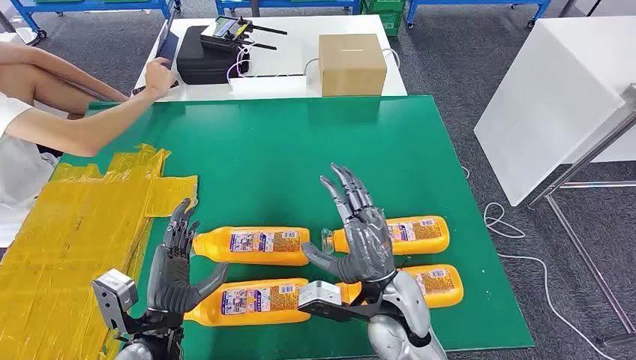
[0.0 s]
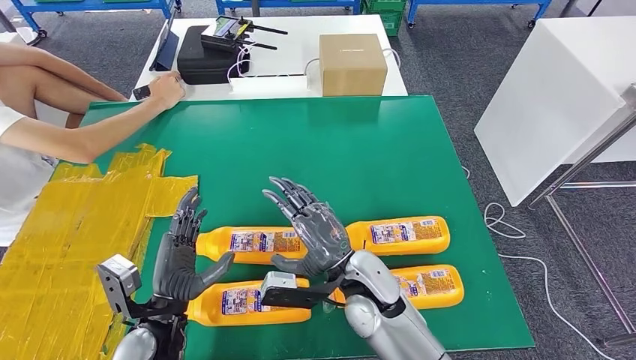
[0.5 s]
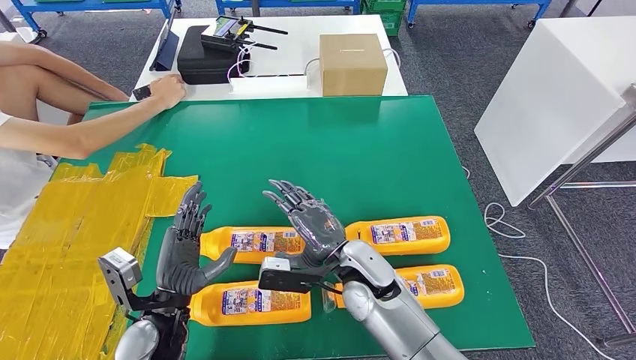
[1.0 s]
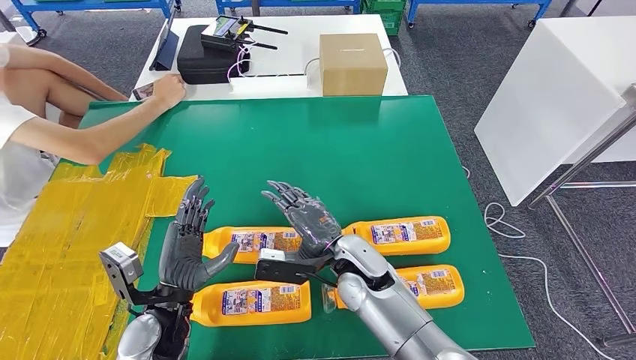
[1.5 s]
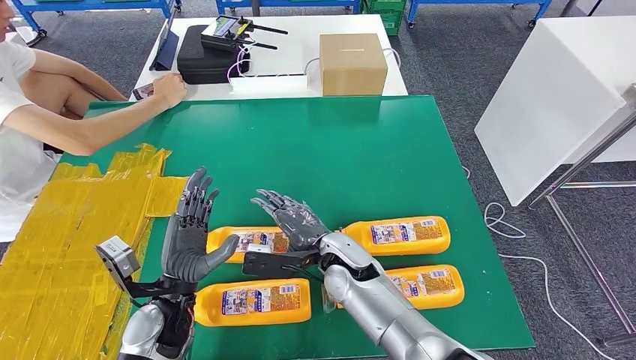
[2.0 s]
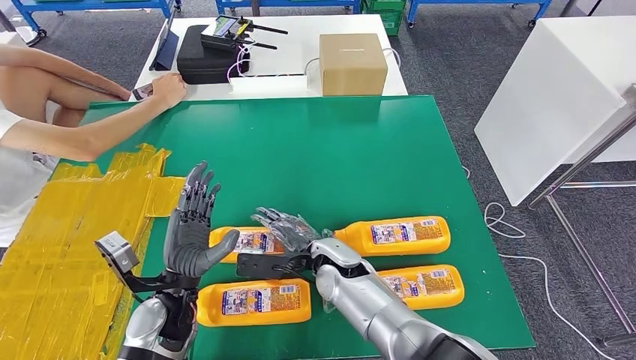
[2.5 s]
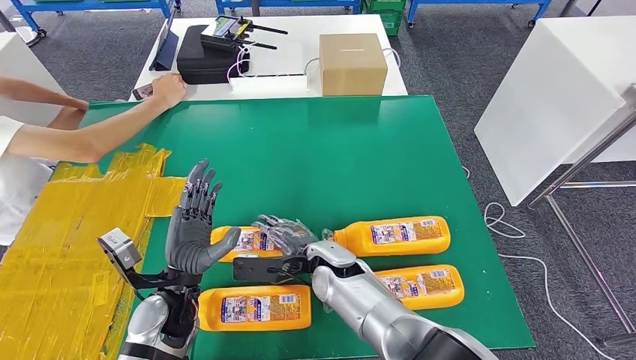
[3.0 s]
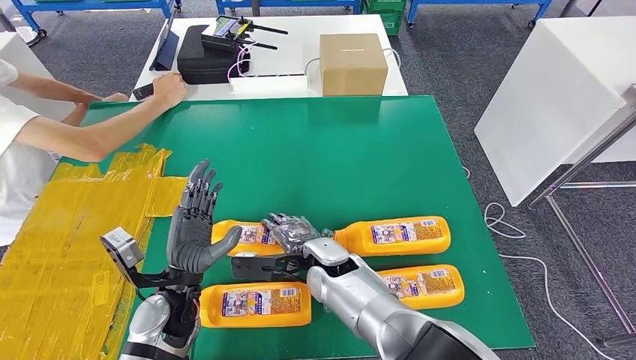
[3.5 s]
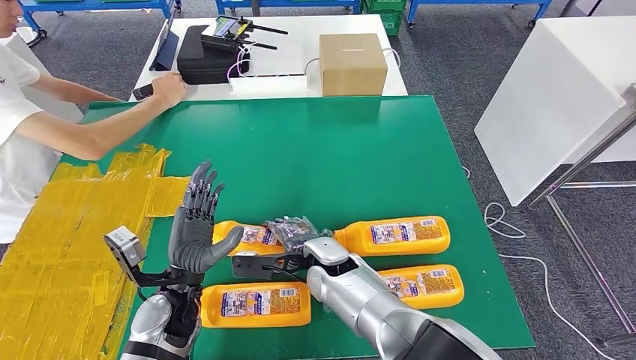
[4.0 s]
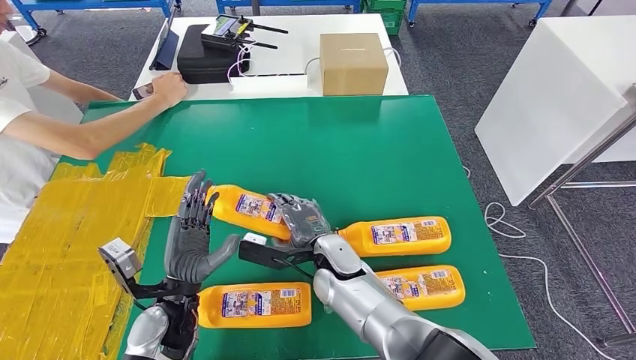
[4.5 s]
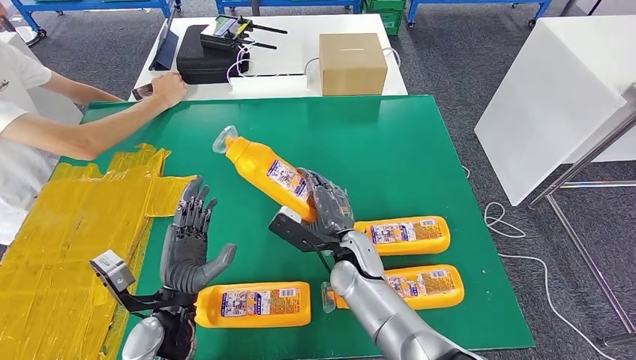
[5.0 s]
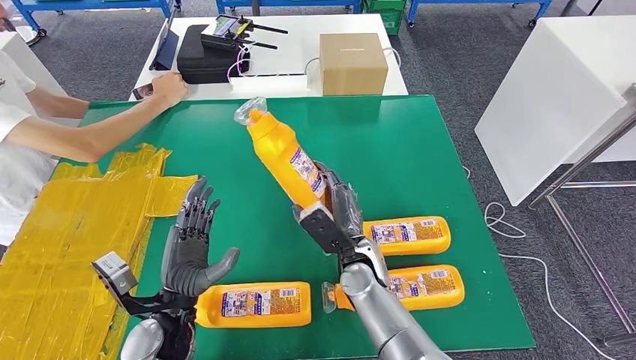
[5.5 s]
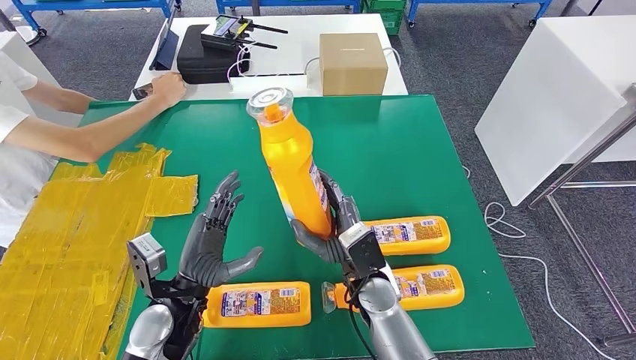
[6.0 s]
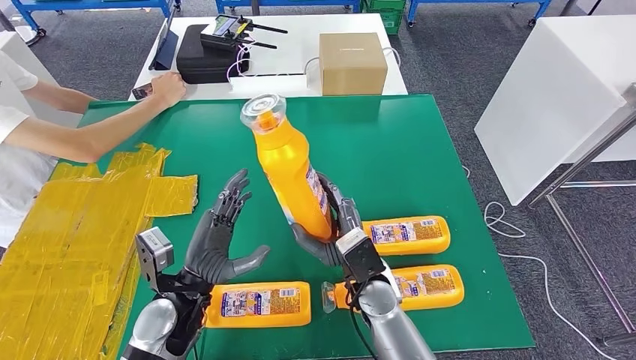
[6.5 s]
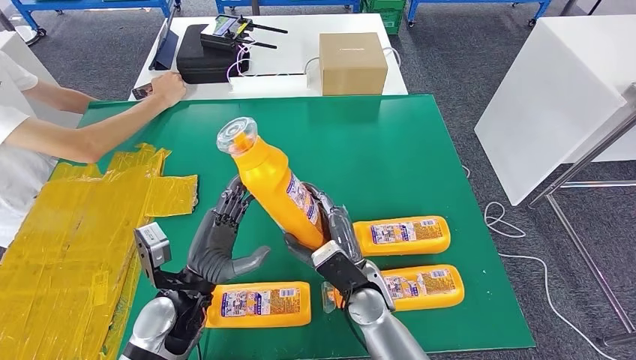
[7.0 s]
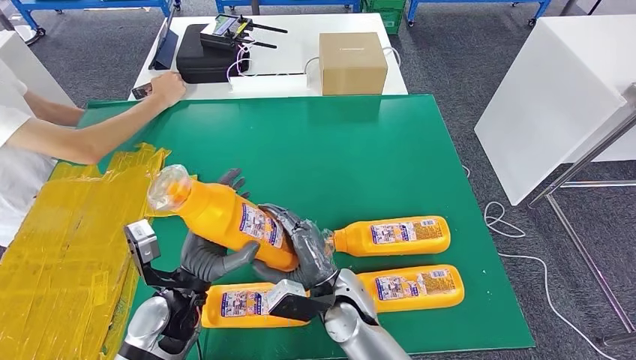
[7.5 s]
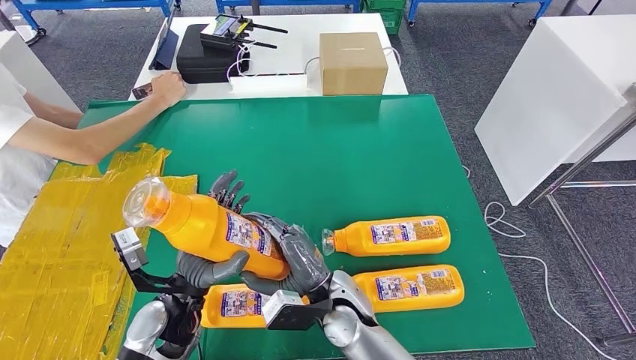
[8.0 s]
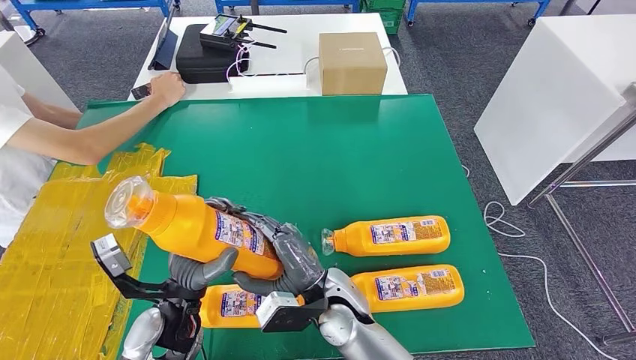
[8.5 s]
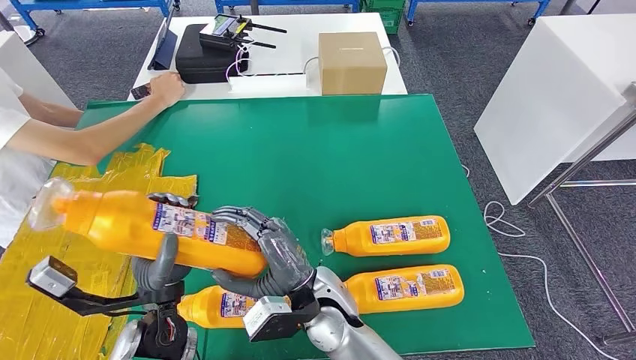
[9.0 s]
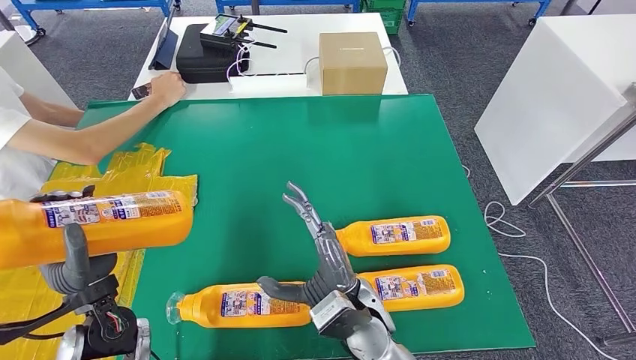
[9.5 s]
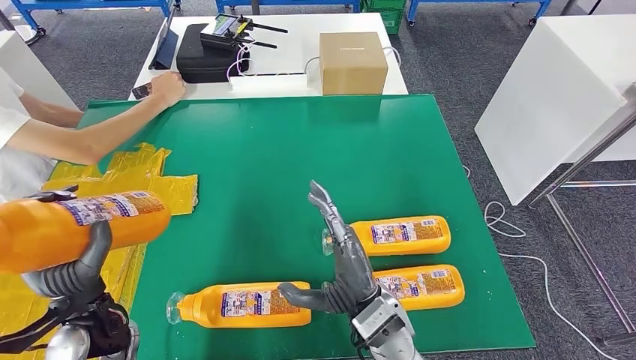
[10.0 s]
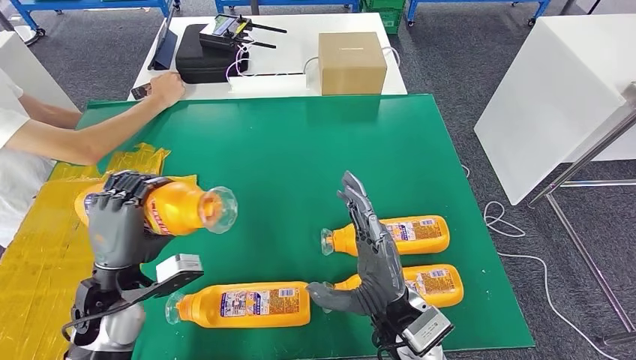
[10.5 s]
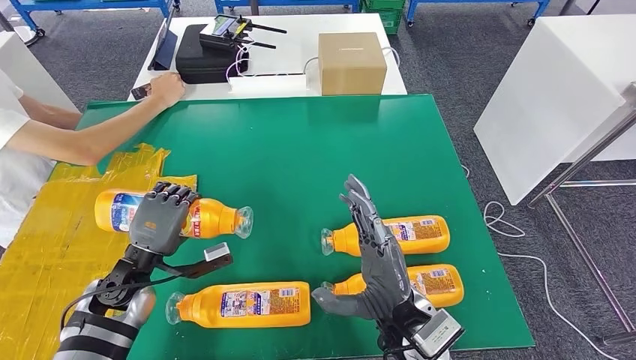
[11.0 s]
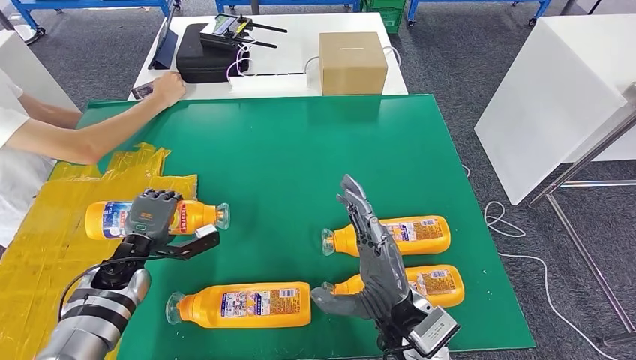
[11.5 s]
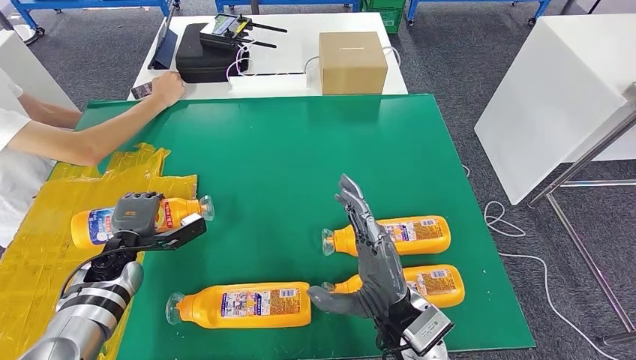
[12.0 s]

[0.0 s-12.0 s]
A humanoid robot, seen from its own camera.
Step, 0.0 to 6.5 s: Take the fast-moving consumer goods bottle from the table.
Step, 7.0 to 11.5 s: Flip the fast-moving consumer goods bottle to the front side.
4.0 to 6.0 s: The right hand shifts about 5 cm to the right.
6.0 to 8.0 s: The right hand heads to the left, covering roughly 5 cm.
8.0 to 10.0 s: The right hand heads to the right, covering about 5 cm. Meanwhile the left hand shifts about 10 cm to the left and upward.
10.0 to 12.0 s: The left hand goes approximately 20 cm forward, downward and to the left.

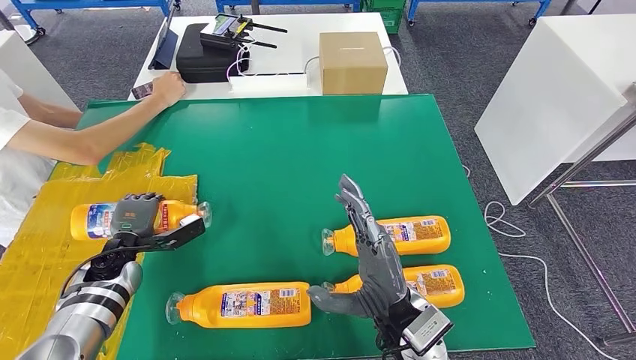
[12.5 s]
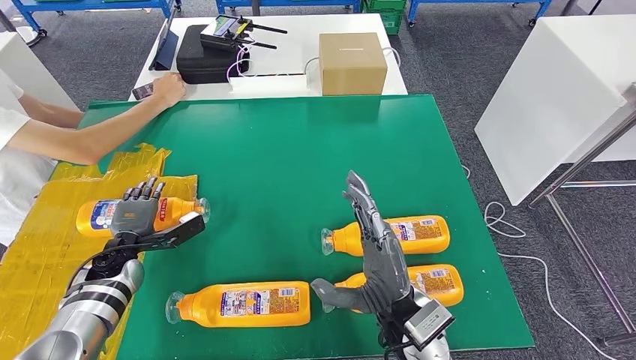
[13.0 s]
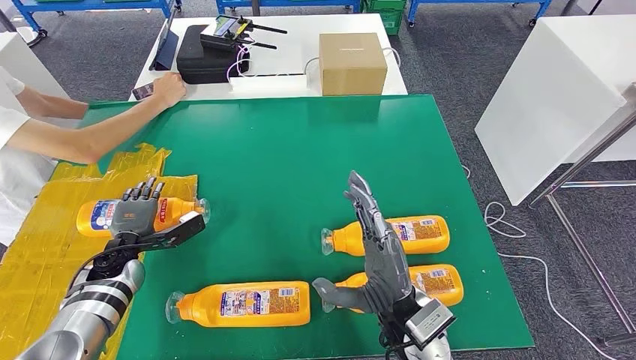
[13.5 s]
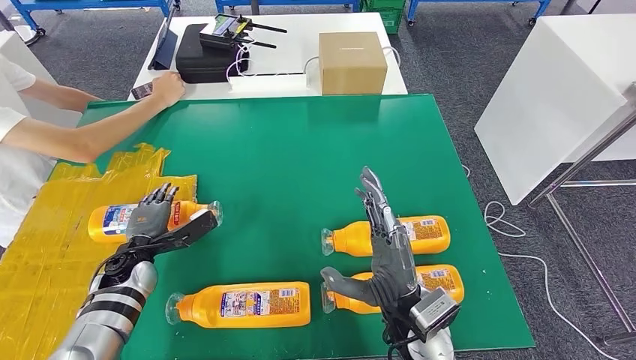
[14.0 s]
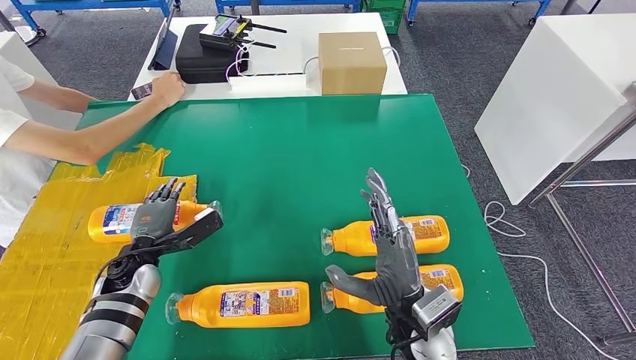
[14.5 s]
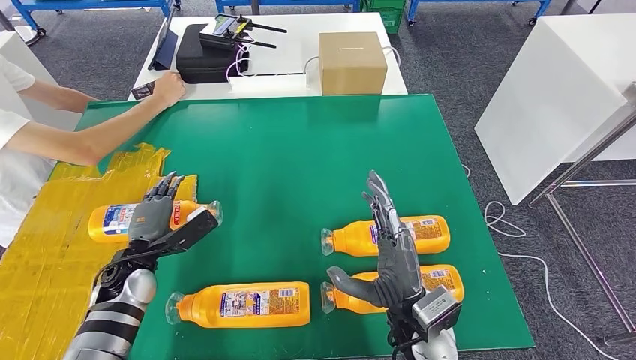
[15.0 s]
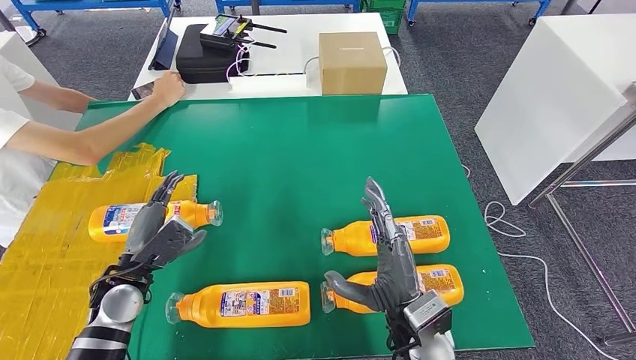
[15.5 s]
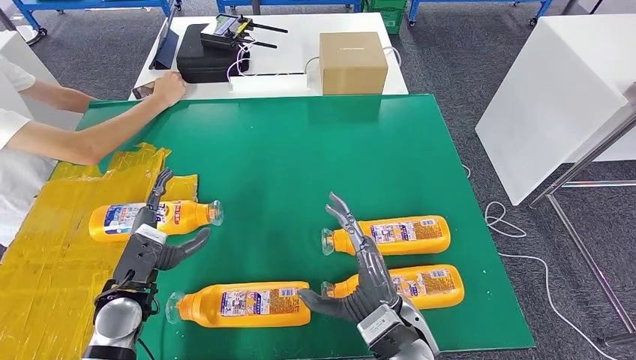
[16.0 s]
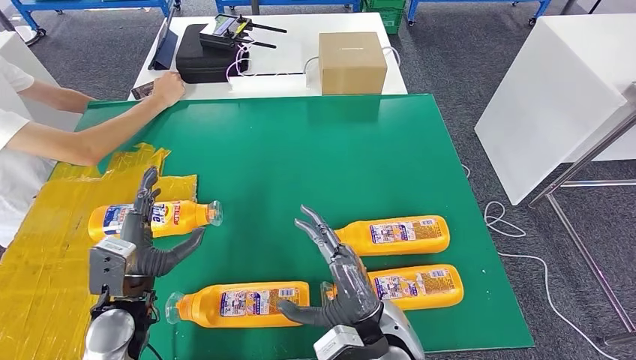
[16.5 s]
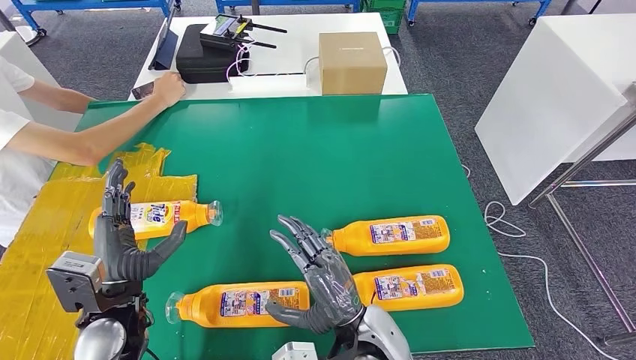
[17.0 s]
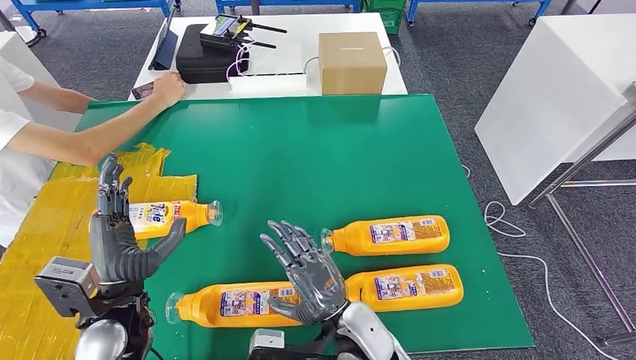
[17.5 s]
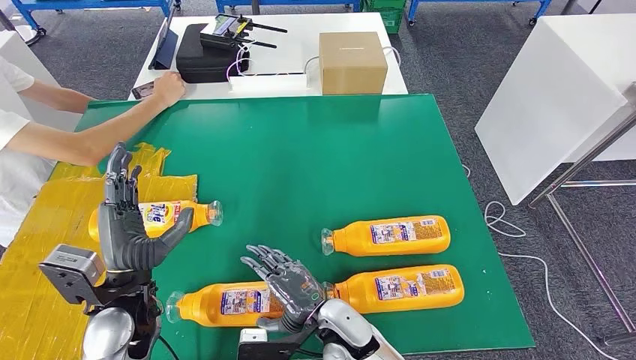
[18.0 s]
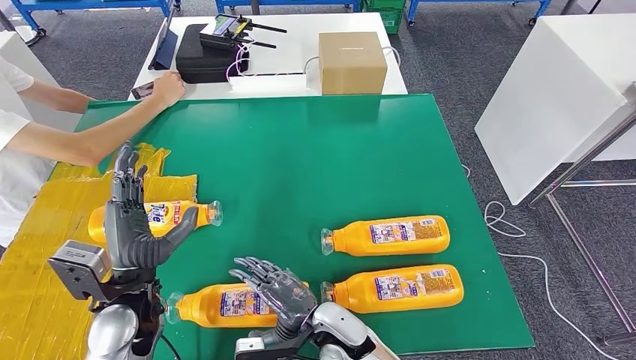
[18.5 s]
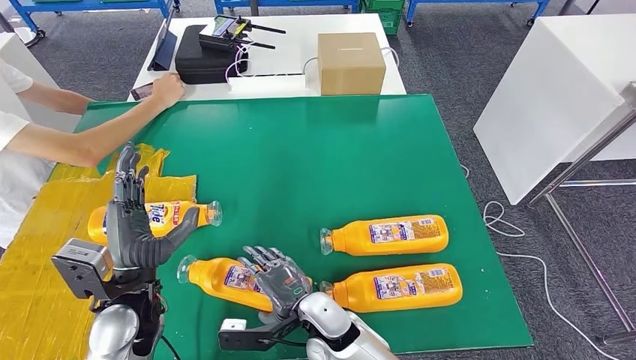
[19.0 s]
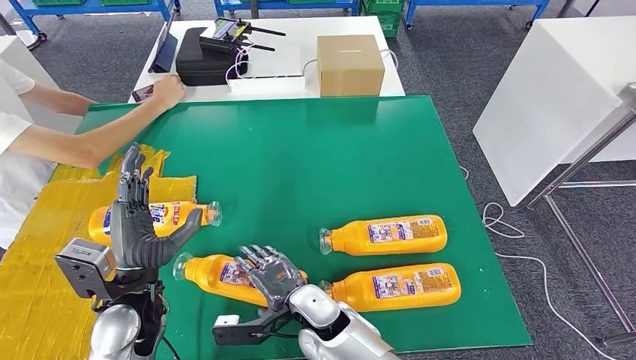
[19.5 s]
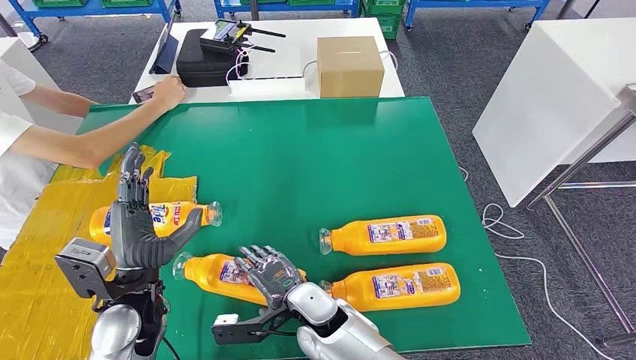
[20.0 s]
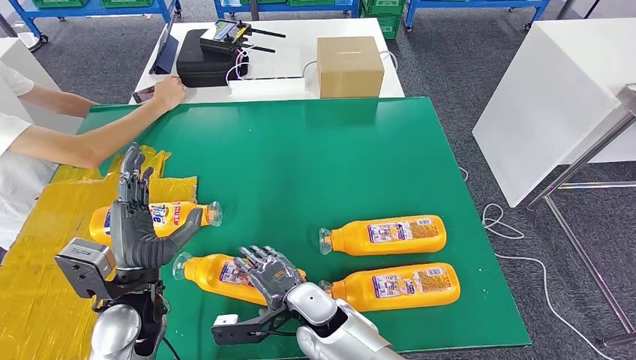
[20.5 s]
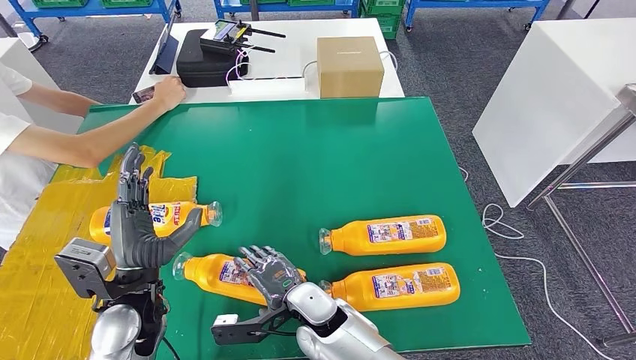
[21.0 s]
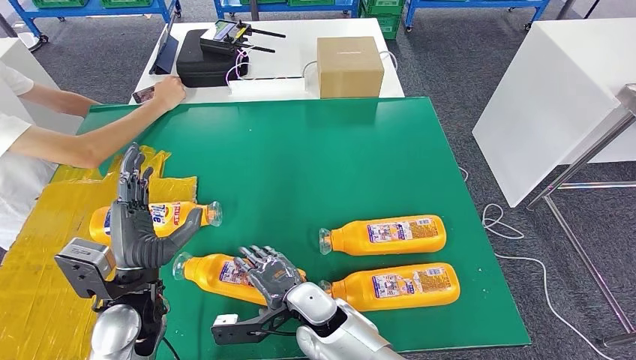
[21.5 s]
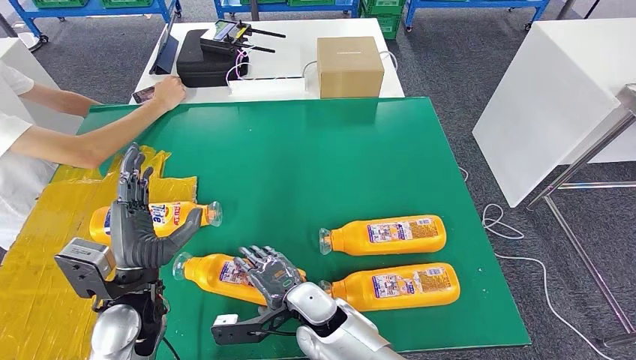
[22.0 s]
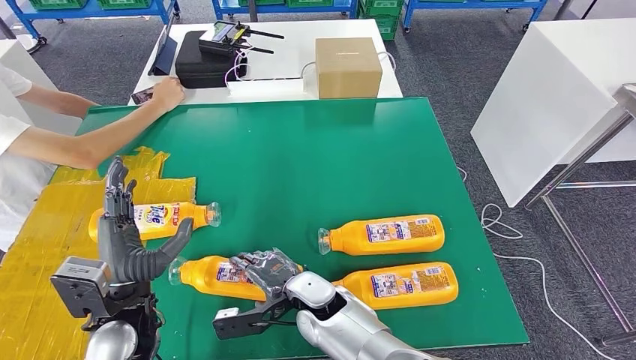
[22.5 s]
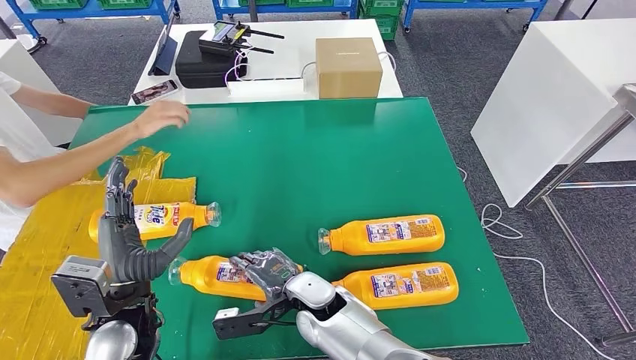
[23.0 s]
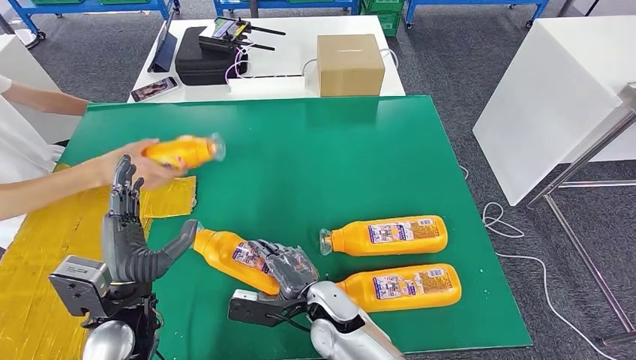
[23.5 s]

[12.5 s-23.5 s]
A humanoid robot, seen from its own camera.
12.5 to 14.5 s: The left hand moves to the right, about 5 cm.
14.5 to 16.0 s: The left hand is displaced backward by roughly 5 cm.
16.0 to 18.0 s: The right hand travels to the left and downward by approximately 10 cm, while the left hand travels upward by approximately 5 cm.
20.0 to 21.5 s: Both hands stay put.
